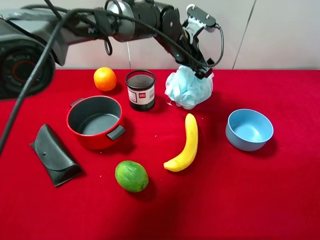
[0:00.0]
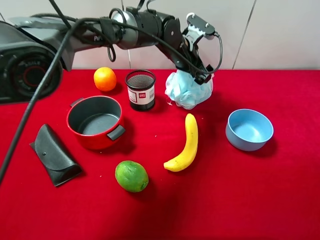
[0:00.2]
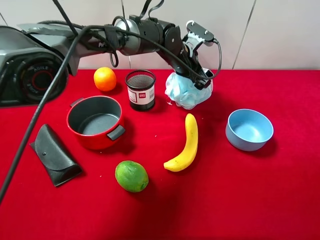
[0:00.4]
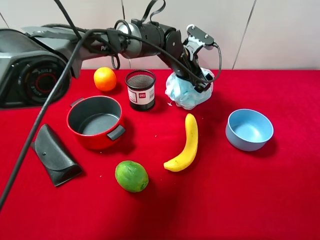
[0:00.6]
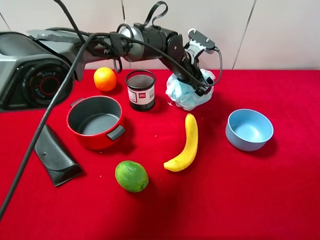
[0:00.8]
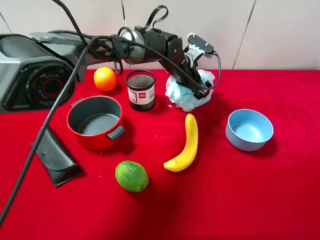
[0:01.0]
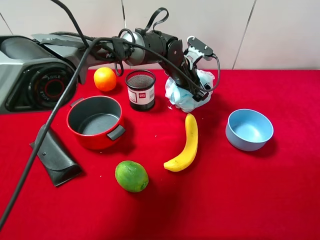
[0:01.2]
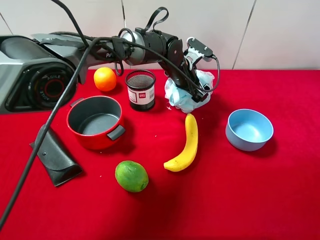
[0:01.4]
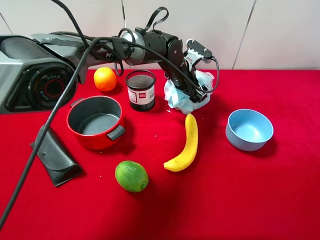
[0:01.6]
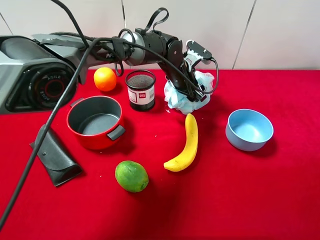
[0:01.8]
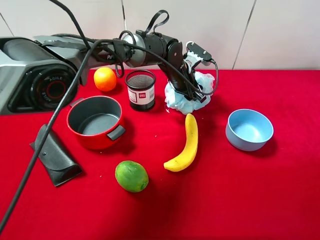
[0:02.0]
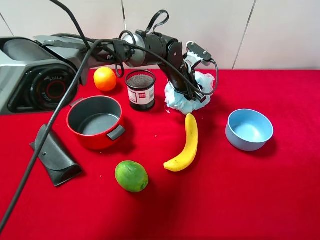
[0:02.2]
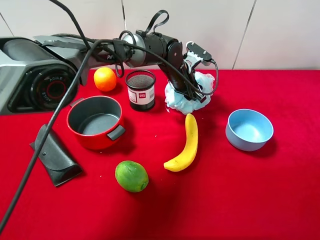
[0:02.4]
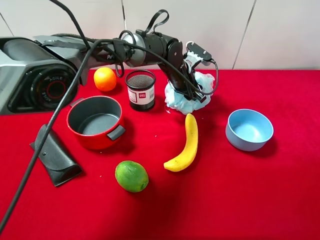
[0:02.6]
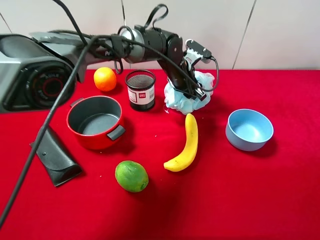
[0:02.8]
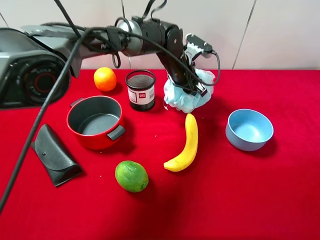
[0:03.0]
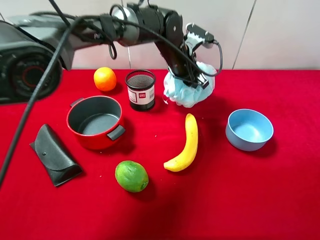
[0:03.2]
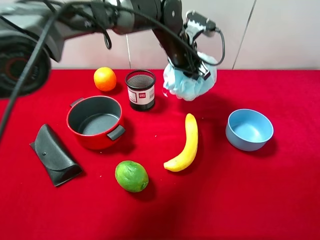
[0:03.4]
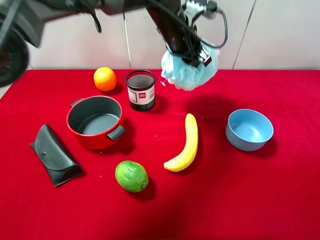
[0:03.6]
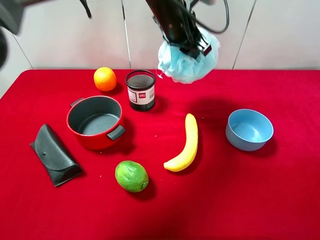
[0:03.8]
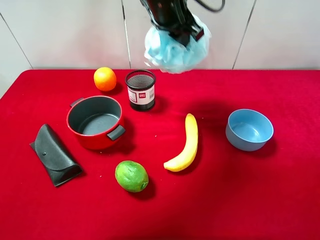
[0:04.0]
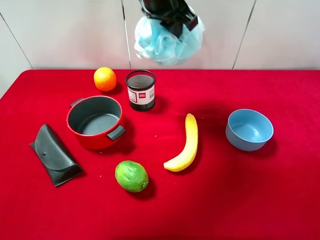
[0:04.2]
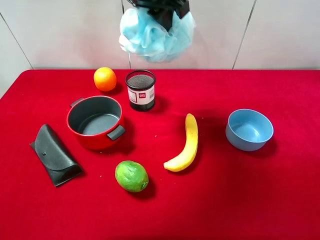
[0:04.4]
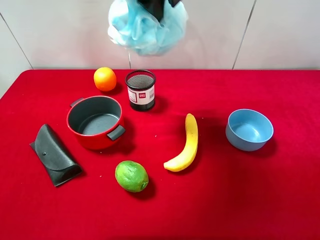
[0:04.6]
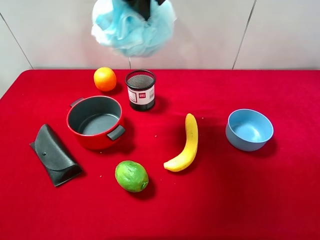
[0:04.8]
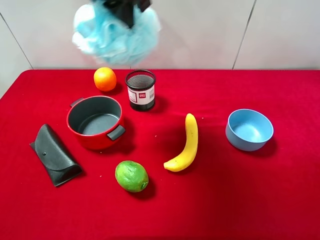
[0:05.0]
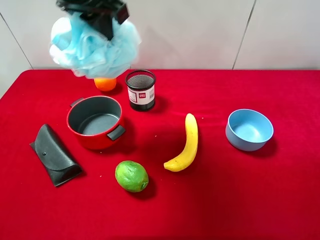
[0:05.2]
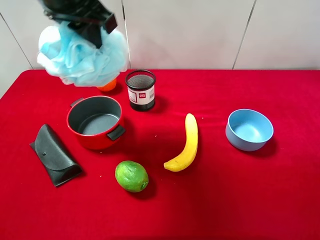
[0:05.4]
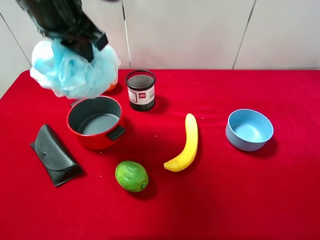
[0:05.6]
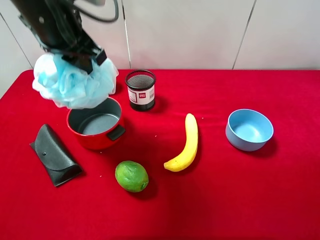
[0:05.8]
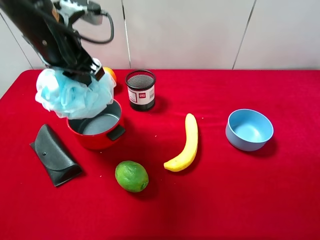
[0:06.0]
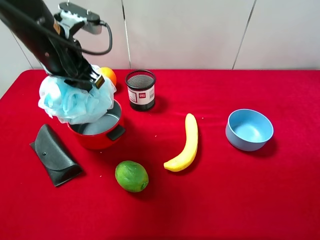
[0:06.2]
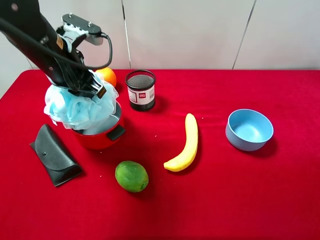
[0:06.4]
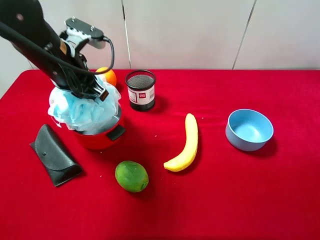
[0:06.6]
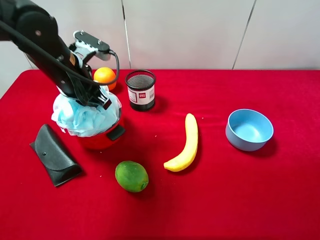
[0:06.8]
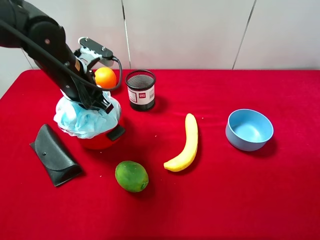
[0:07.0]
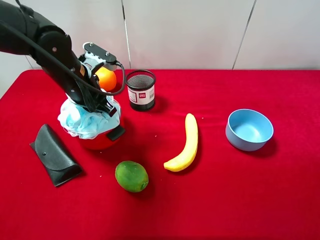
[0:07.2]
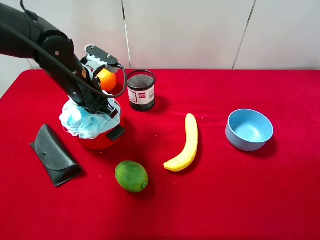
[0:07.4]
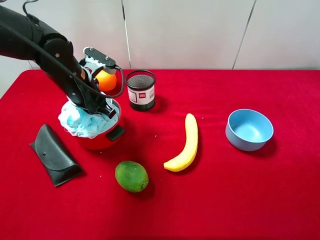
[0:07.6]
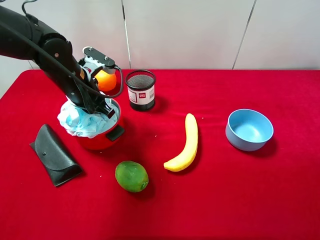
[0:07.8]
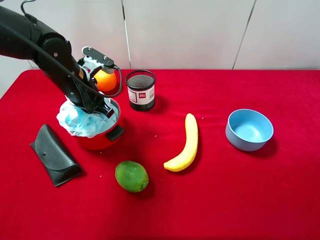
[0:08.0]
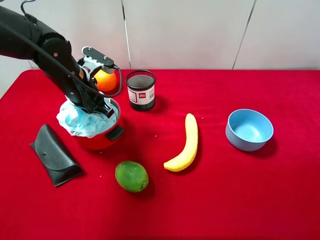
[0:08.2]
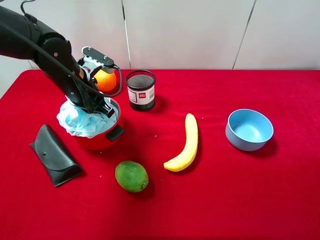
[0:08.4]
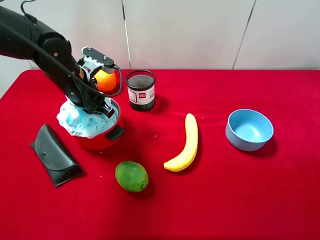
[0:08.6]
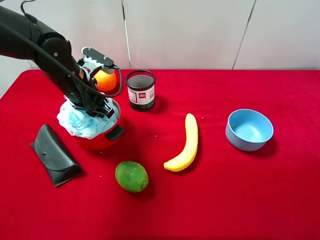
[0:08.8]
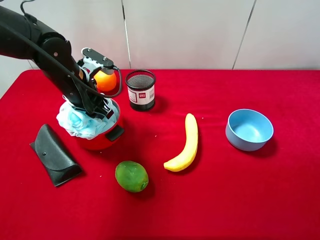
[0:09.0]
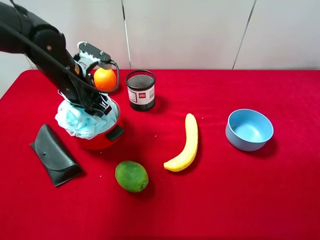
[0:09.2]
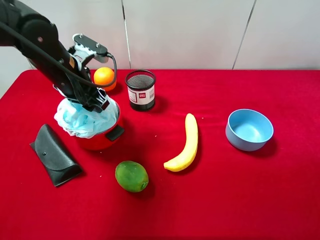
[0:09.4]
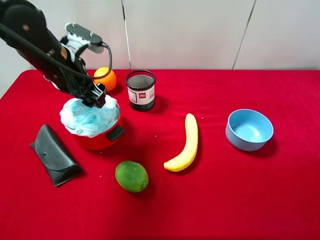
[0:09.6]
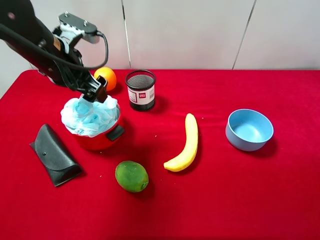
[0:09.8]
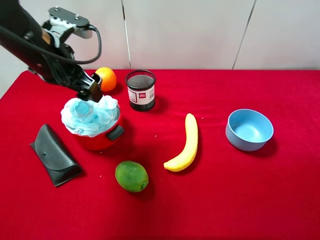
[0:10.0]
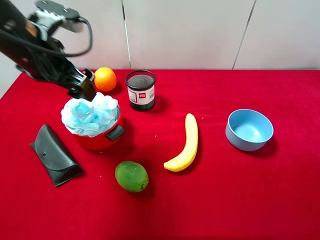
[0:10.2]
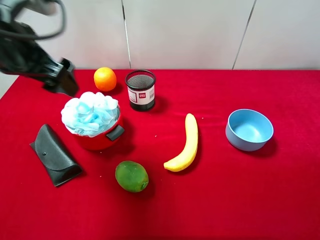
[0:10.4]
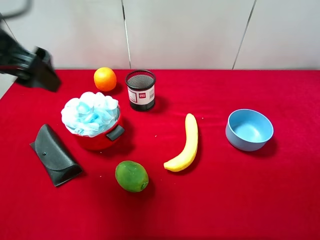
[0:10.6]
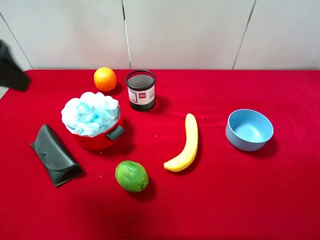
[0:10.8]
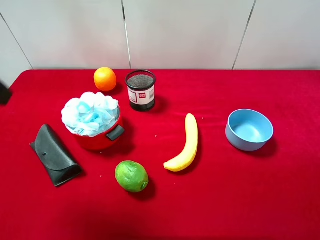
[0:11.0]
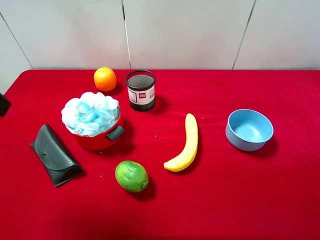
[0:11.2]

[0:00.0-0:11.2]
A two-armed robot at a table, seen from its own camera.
Task of the whole recording: pick up an item with a gripper and place it in a random container on the desktop.
0:00.0 to 0:01.6: The left gripper heads downward, covering approximately 5 cm.
0:01.6 to 0:03.2: The left gripper shifts about 5 cm upward, and closes its fingers.
0:03.2 to 0:04.8: The left gripper shifts about 25 cm upward, to the left and backward.
0:04.8 to 0:06.4: The left gripper goes roughly 20 cm downward and to the left.
0:06.4 to 0:08.0: The left gripper is displaced downward by about 5 cm.
0:08.0 to 0:09.6: The left gripper moves upward, about 5 cm, and opens its fingers.
0:09.6 to 0:11.2: The left gripper goes approximately 20 cm backward, upward and to the left.

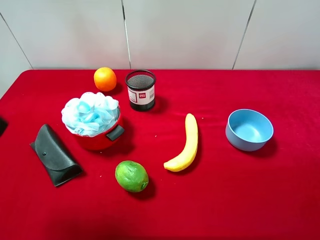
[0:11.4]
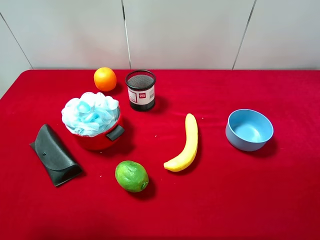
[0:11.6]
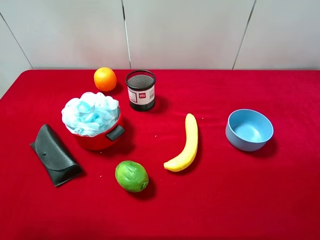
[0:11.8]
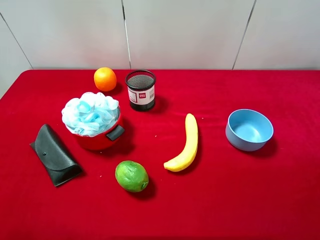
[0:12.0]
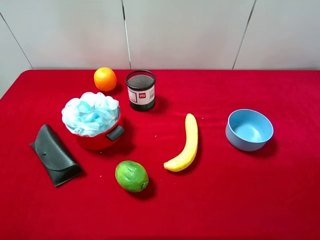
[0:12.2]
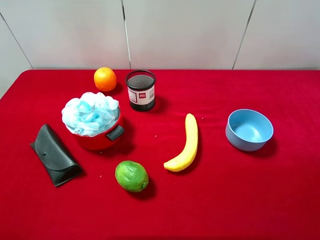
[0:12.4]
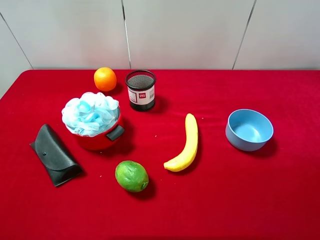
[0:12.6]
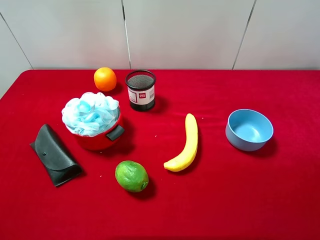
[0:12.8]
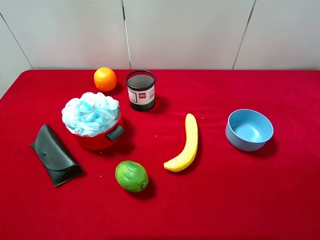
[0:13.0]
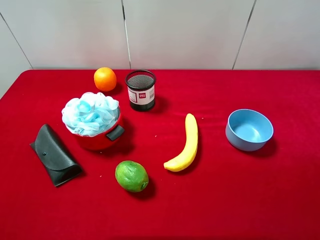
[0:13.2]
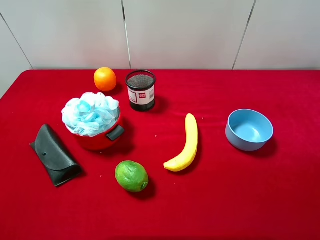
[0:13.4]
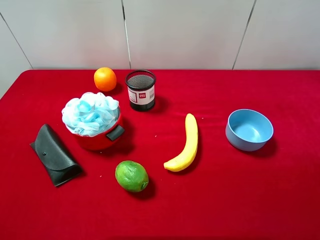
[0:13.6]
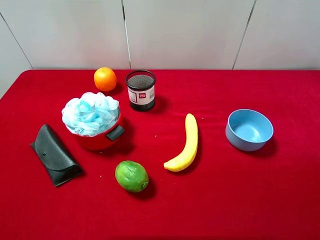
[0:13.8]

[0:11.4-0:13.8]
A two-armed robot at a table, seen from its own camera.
Task of the whole recording: pick up an item with a gripper and place it in a random container on the desktop.
0:12.6 to 0:13.8: Neither gripper changes place.

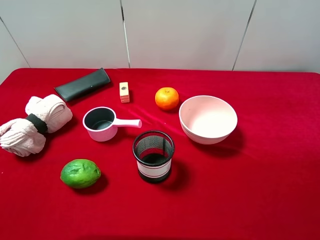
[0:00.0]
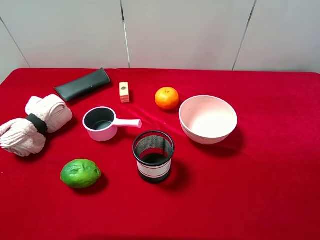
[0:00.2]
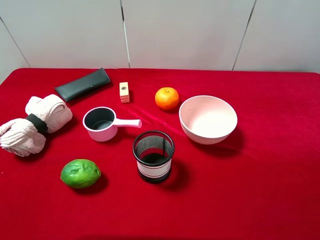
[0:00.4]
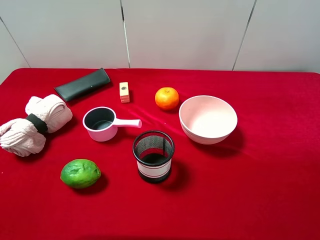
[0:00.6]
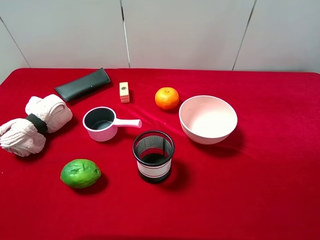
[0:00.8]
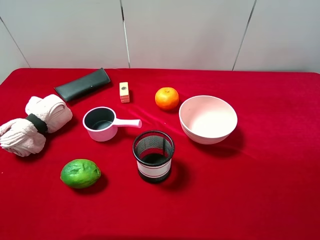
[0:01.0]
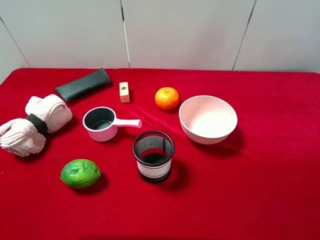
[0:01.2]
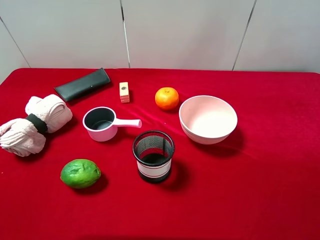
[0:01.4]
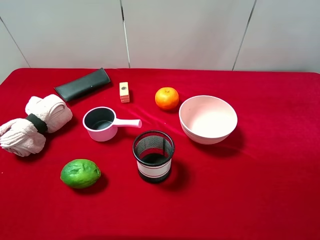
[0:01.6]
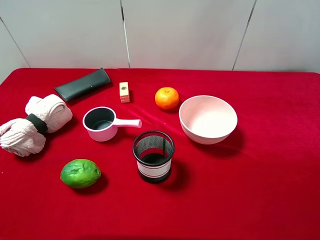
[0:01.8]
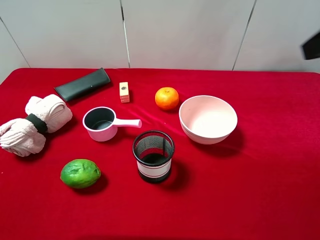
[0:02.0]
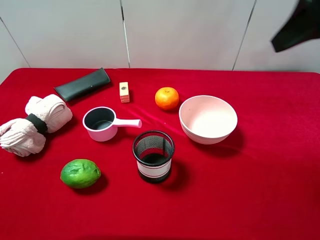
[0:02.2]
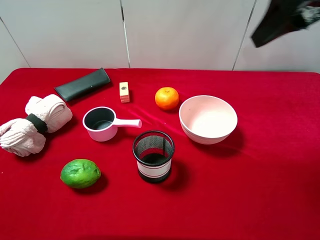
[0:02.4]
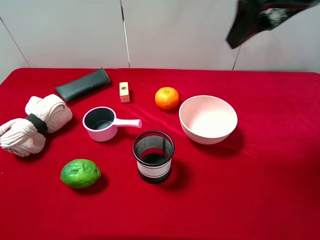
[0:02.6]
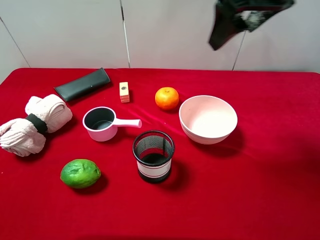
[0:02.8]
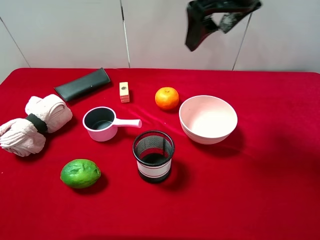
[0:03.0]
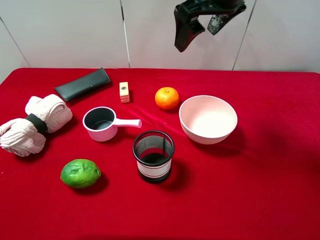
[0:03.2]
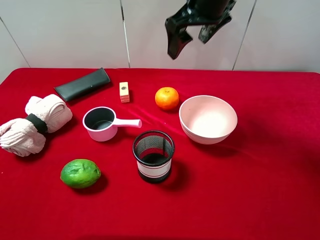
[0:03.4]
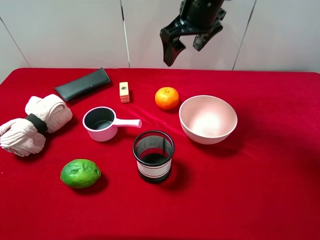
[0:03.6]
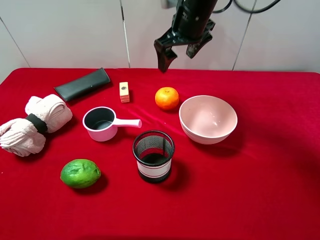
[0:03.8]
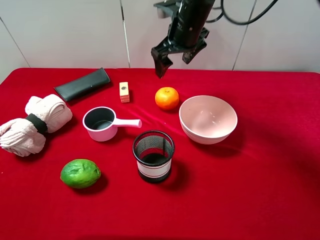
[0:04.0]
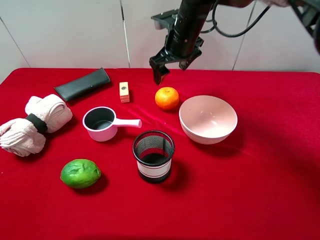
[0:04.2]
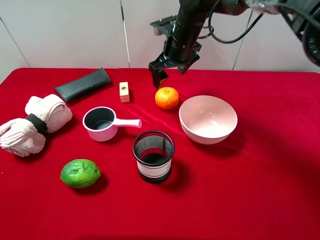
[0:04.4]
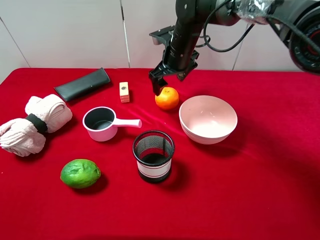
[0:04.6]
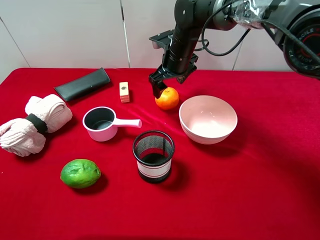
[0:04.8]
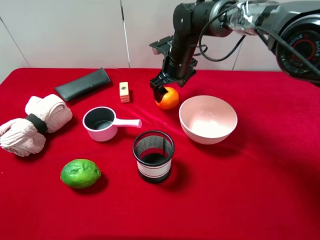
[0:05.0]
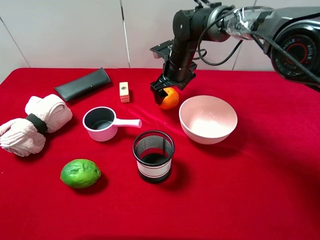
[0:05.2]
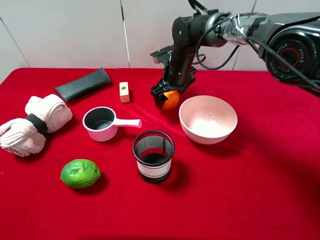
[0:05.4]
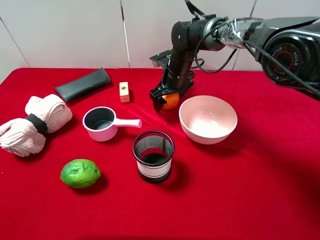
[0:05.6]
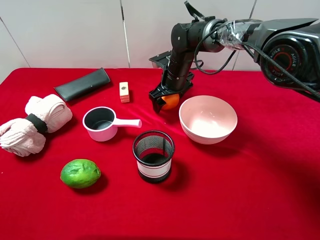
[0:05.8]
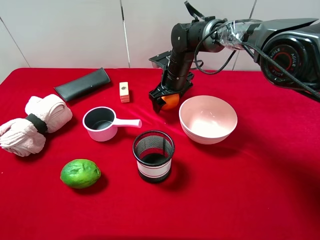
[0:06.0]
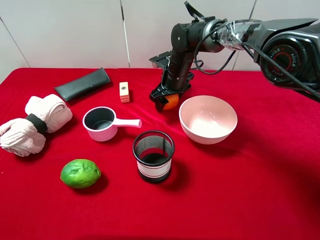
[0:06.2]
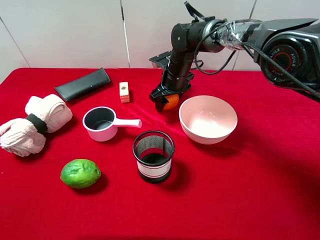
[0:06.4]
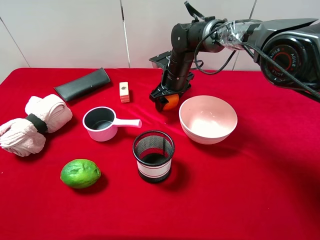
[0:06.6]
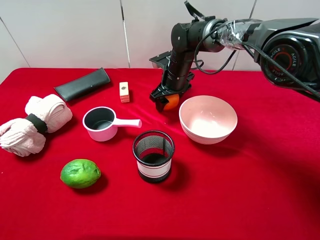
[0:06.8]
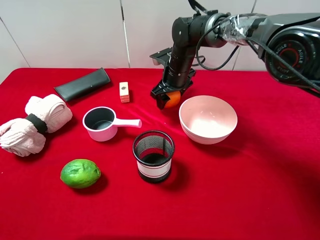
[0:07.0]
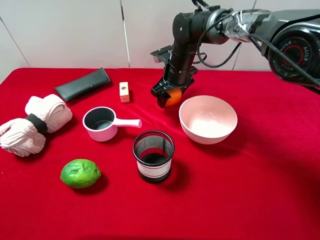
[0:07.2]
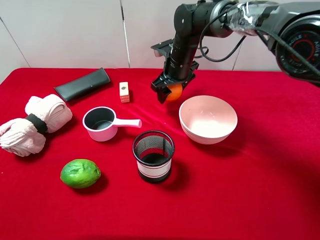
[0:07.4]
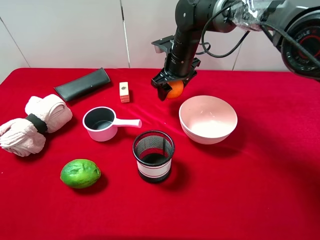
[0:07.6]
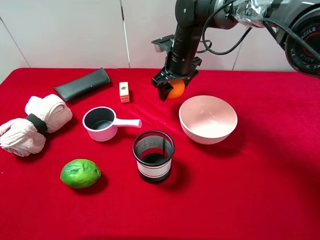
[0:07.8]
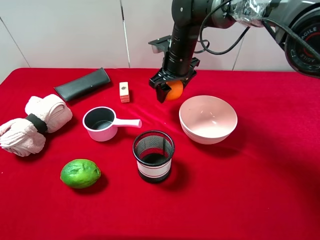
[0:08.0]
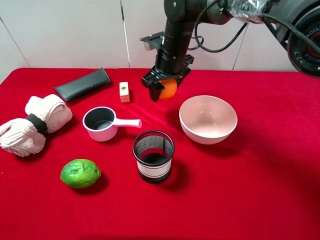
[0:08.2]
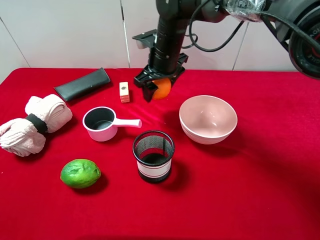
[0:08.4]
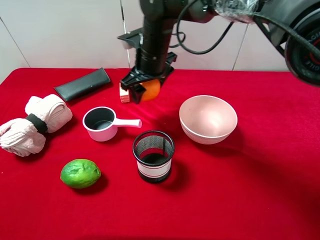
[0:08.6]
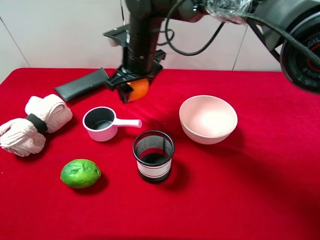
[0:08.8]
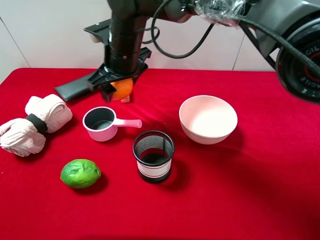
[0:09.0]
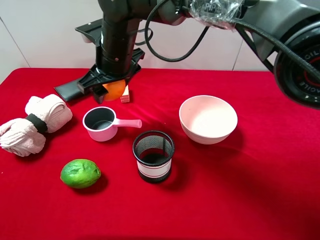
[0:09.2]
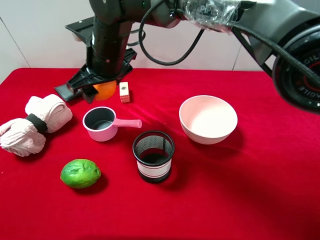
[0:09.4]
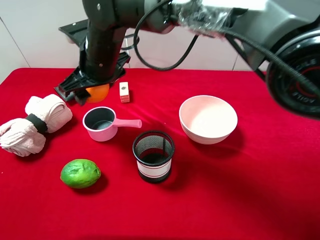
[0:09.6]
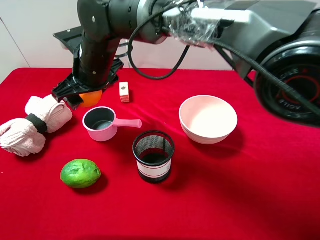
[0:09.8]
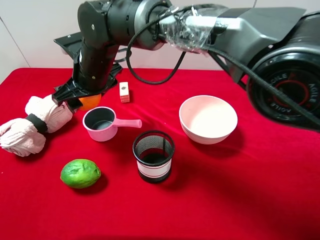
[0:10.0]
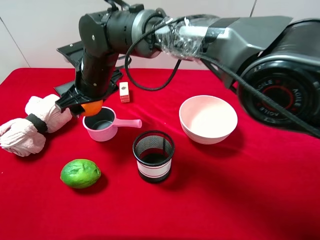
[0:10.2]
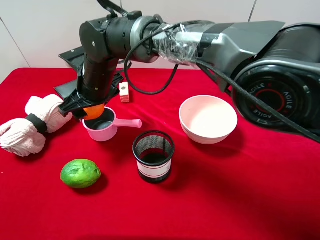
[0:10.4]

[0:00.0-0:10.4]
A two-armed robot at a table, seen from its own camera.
Task of the whole recording: pick up an item with a gripper and place it in a random container on the desktop.
0:01.4 to 0:03.0: The right gripper moves forward and to the left, approximately 30 cm.
0:03.0 to 0:04.4: The right gripper goes roughly 20 cm downward, forward and to the left.
0:04.4 to 0:06.0: The right gripper shifts approximately 10 cm downward.
0:06.0 to 0:07.4: The right gripper closes its fingers.
0:07.4 to 0:09.0: The right gripper moves to the left, backward and upward, roughly 15 cm.
0:09.0 to 0:10.4: The right gripper is displaced downward by about 5 cm.
